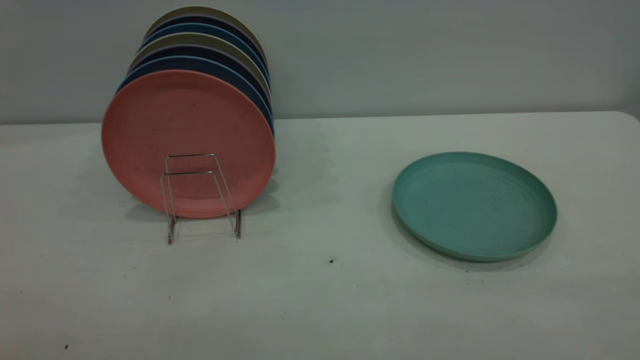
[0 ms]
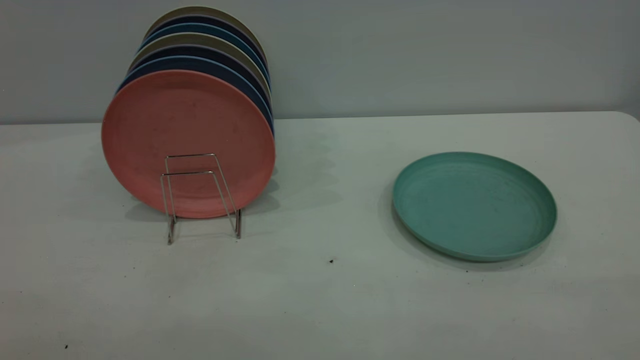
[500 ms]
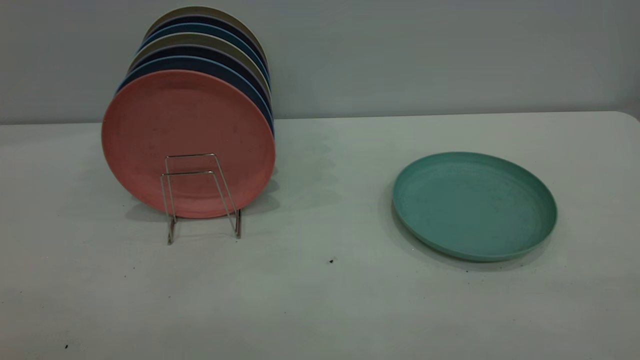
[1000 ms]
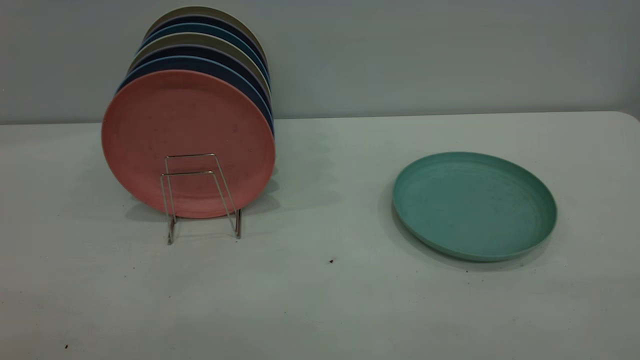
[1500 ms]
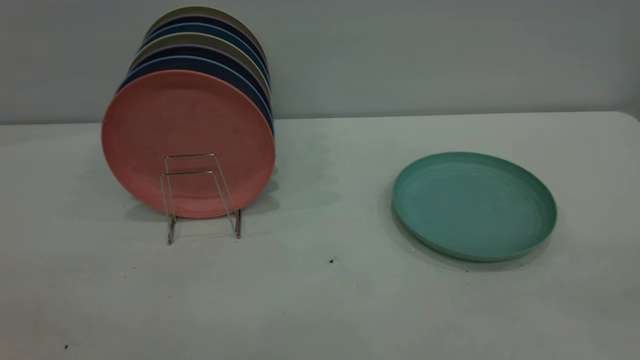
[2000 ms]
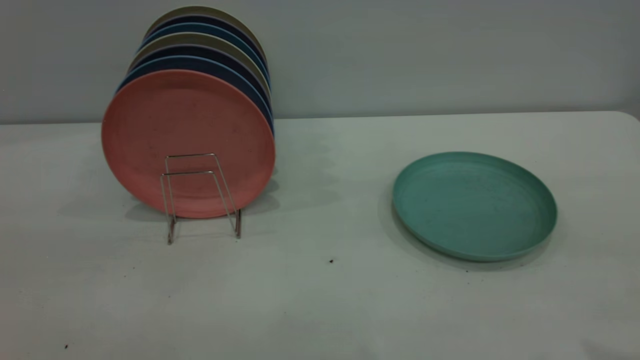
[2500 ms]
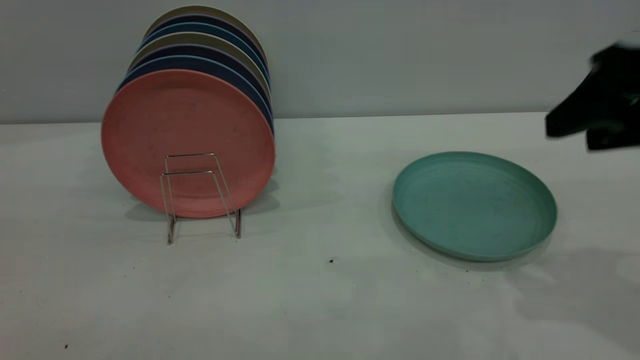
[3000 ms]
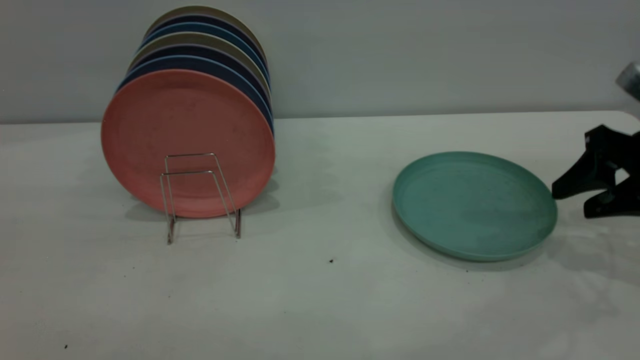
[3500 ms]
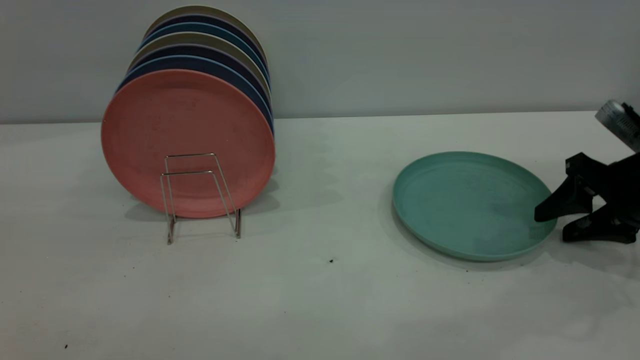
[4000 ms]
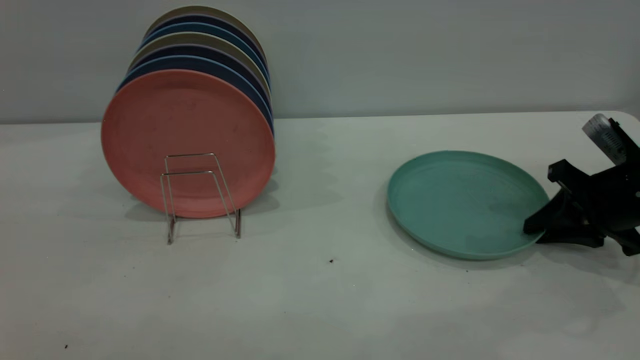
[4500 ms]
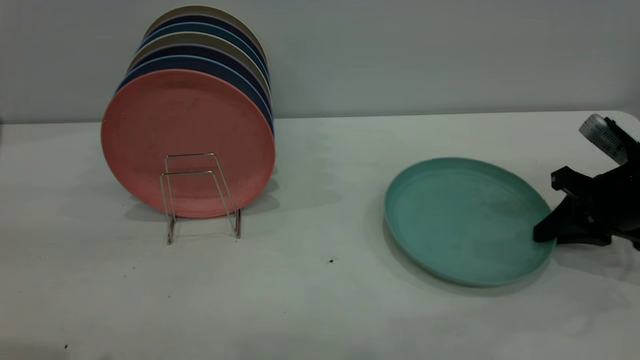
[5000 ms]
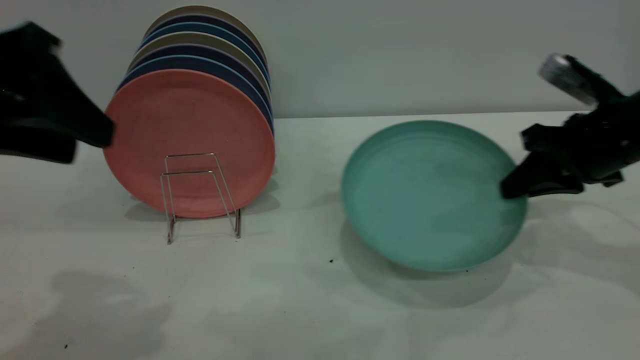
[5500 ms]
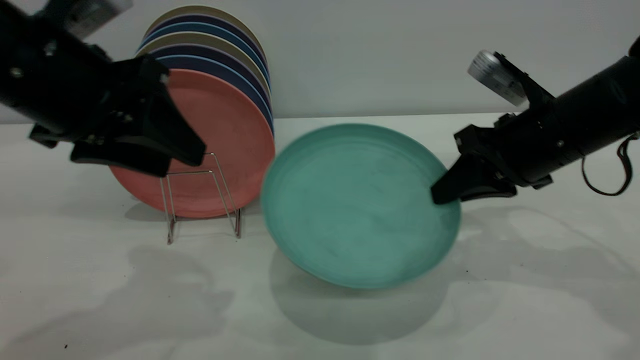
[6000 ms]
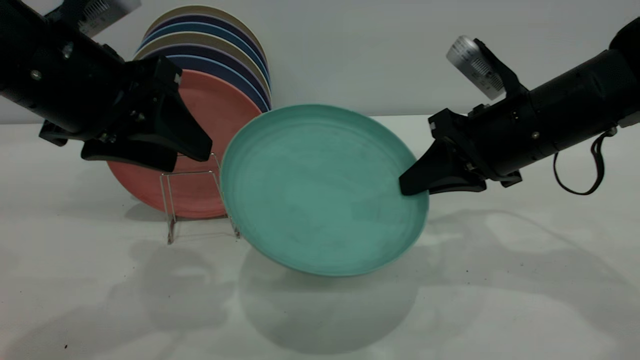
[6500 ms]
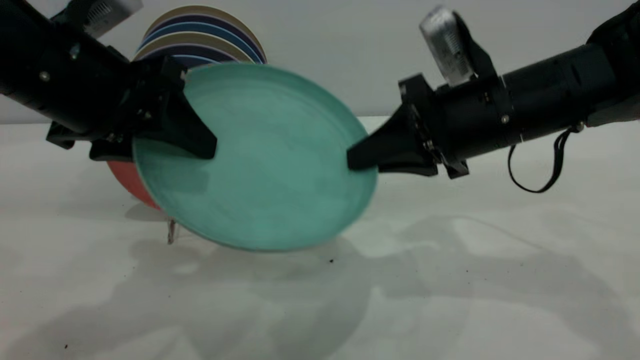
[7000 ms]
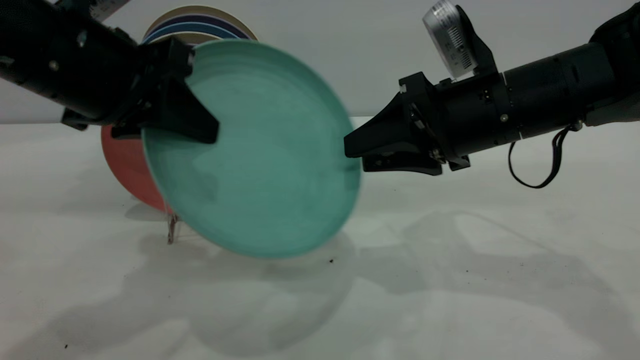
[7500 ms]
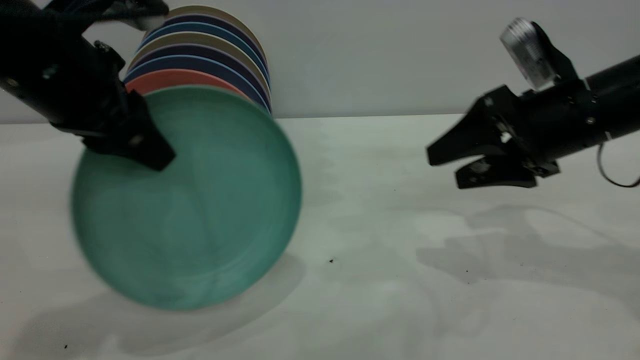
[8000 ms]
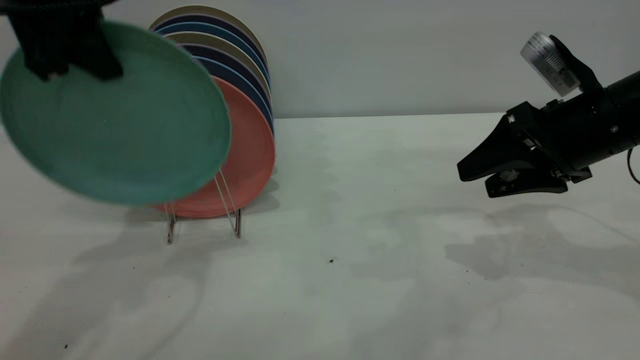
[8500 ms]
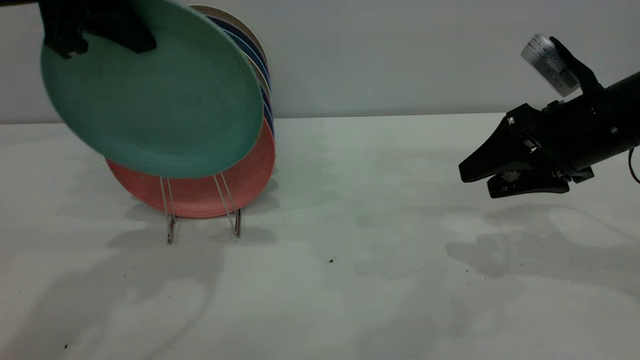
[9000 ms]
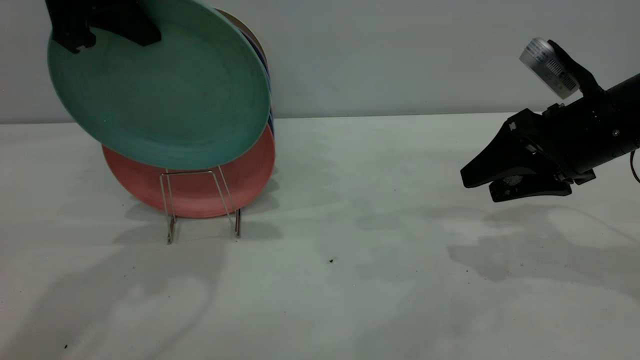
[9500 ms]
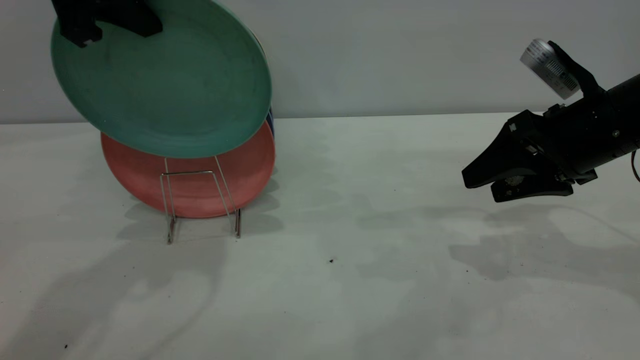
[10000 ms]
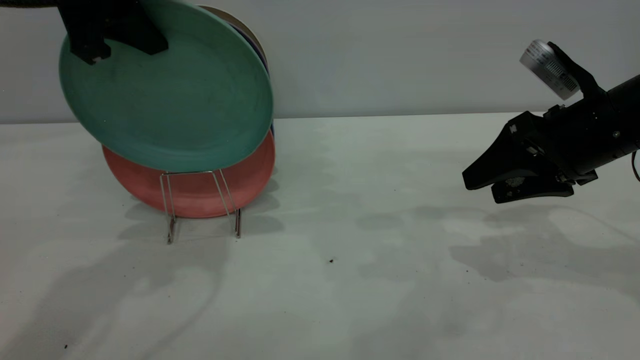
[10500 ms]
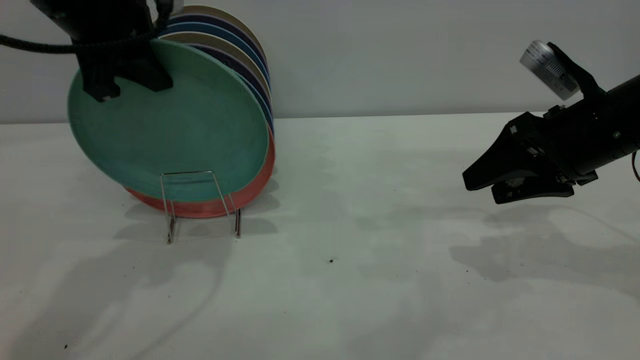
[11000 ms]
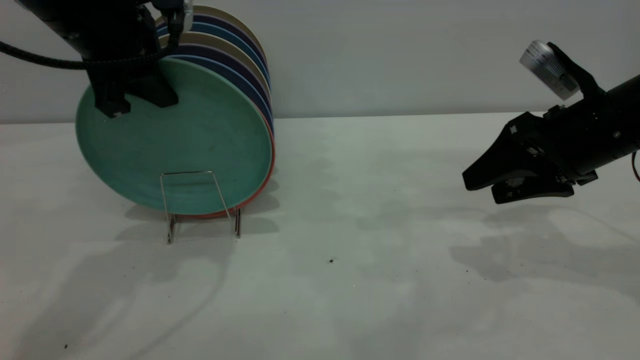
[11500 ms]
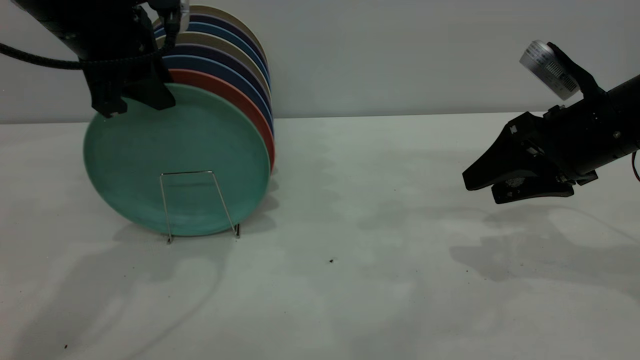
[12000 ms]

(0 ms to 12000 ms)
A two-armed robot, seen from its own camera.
Task of the whole recording: the right gripper grasp the green plate, the right gripper pass the green plate to the left gripper, and the left gripper place the green plate on the plate rack.
Step, 0 ms - 5000 ms: Pick up the plate with the right gripper.
Step, 5500 ms - 8500 ms: Pass the plate from the right gripper to the left gripper.
2000 ms - 4000 ms: The right gripper goes roughly 40 cm forward and downward.
4000 ms - 6000 ms: The left gripper goes roughly 20 cm forward, downward and to the right. Meanwhile the right gripper heads to the left and upward, covering roughly 15 cm, and closes its fingers.
6000 ms - 8000 ms: The right gripper moves some 5 cm to the left and comes back, and opens its fingers, while the left gripper closes its fingers.
8000 ms - 10000 ms: The left gripper heads upward and forward, covering roughly 10 cm.
10000 ms - 12000 ms: The left gripper goes roughly 5 cm downward.

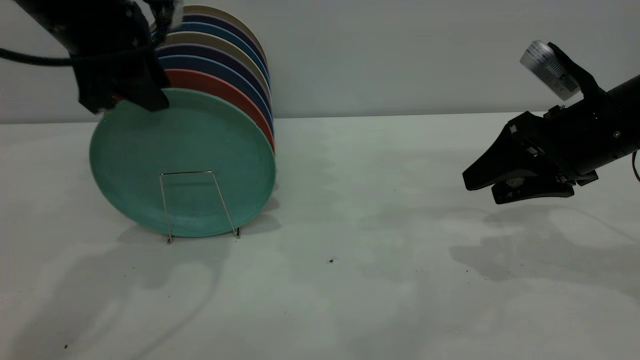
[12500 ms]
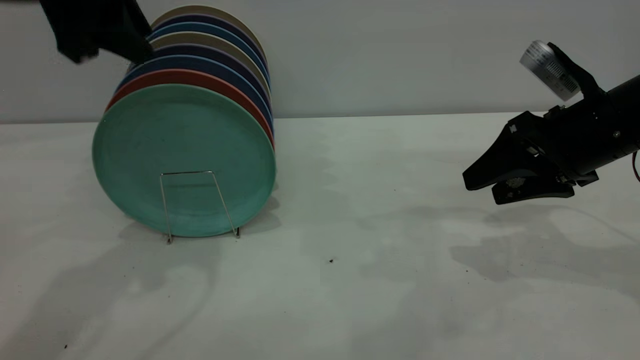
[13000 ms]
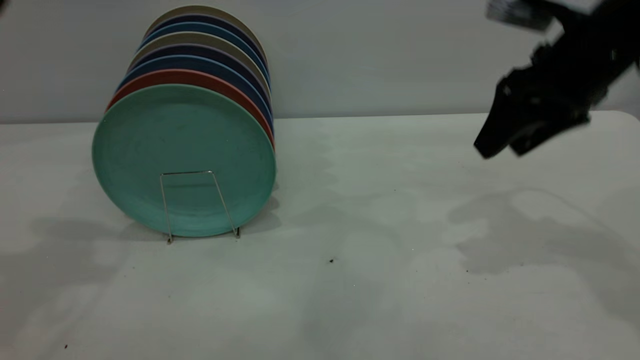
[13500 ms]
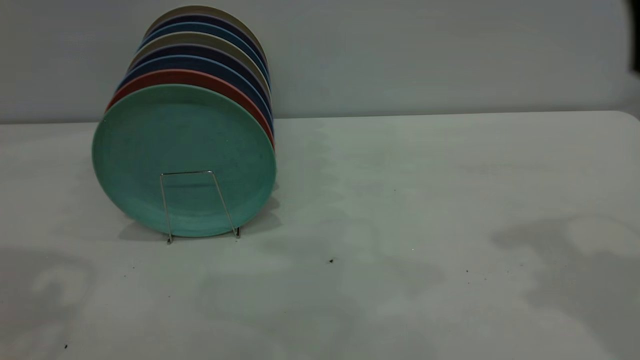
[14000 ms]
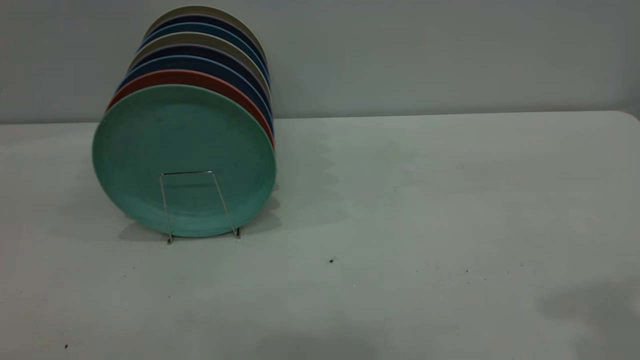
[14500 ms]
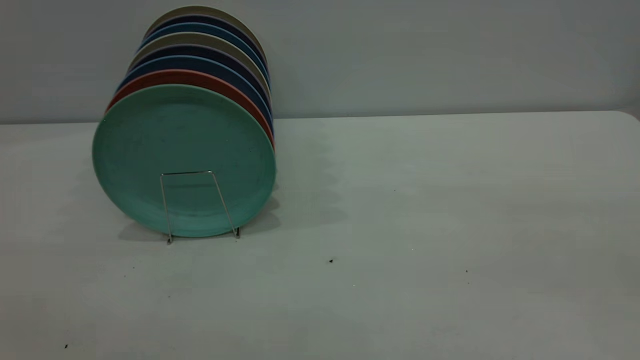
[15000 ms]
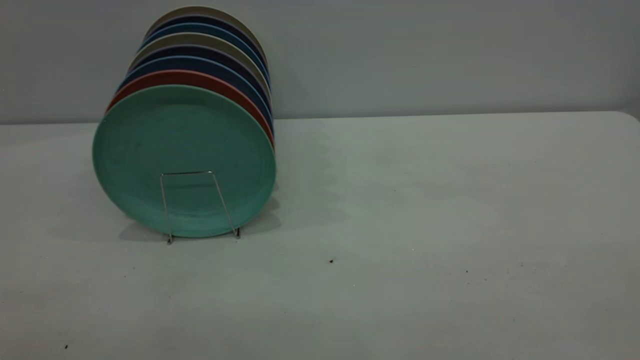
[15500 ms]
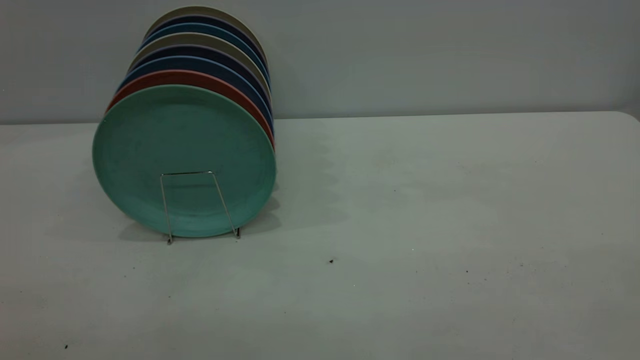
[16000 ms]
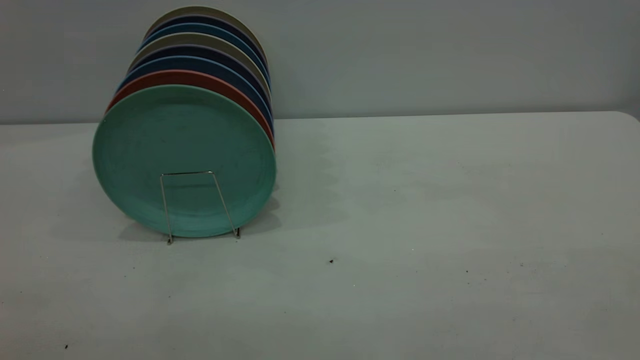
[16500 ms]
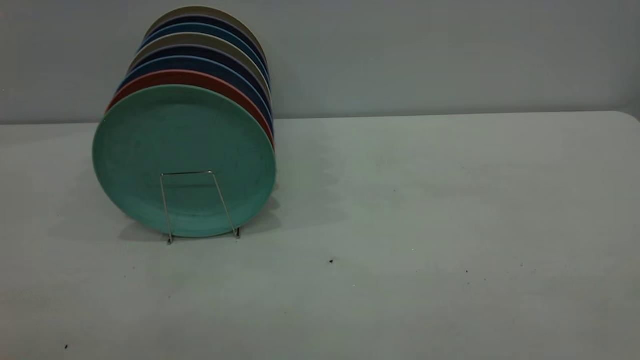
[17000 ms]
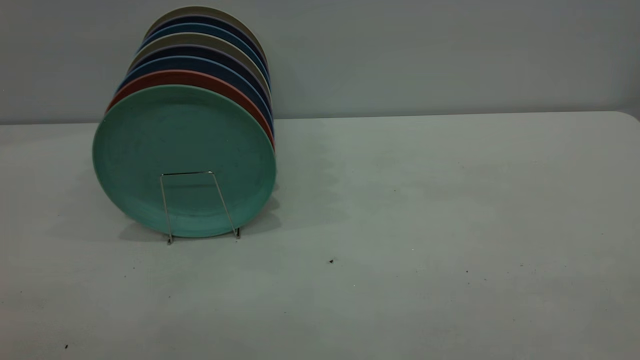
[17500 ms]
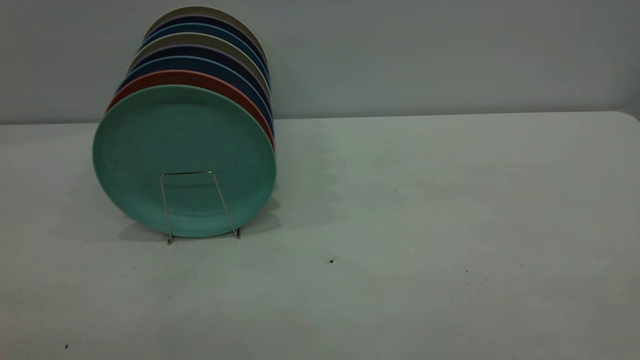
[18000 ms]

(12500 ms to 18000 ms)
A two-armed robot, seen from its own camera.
Task of the whole recording: the right gripper grasp the green plate, the right gripper pass the green plate to the left gripper, and the left gripper place the green plate on the plate rack.
12500 ms - 14500 ms: The right gripper shifts about 30 cm upward and backward. The left gripper moves backward, upward and to the left, about 30 cm, and opens its fingers.

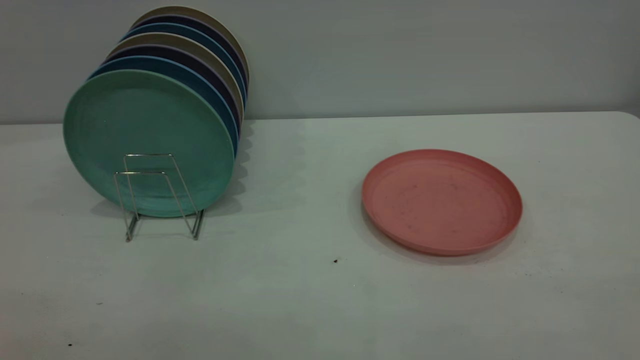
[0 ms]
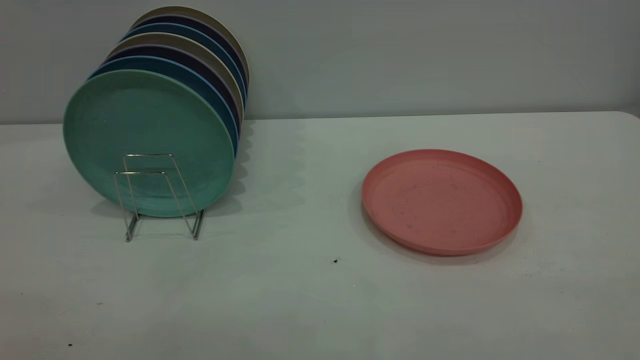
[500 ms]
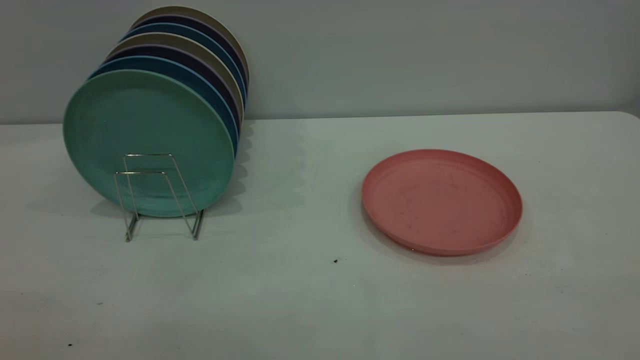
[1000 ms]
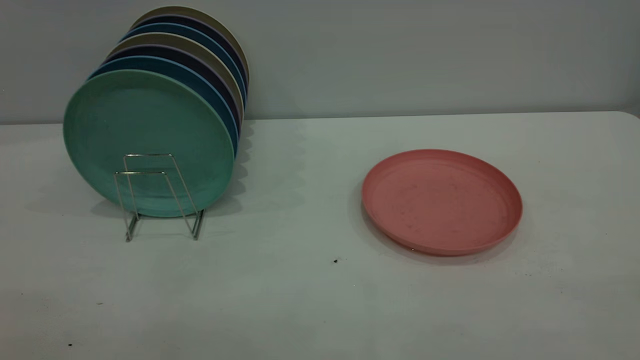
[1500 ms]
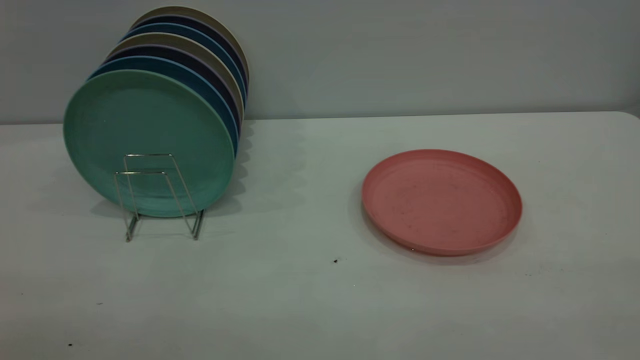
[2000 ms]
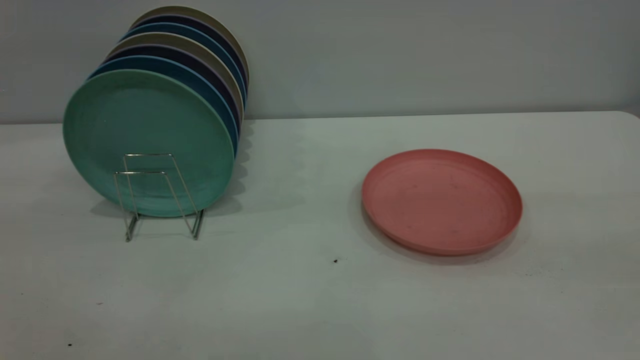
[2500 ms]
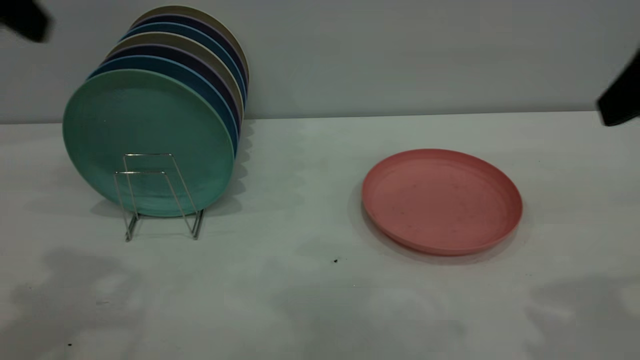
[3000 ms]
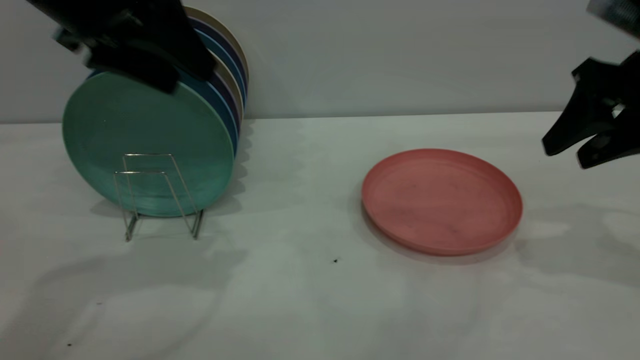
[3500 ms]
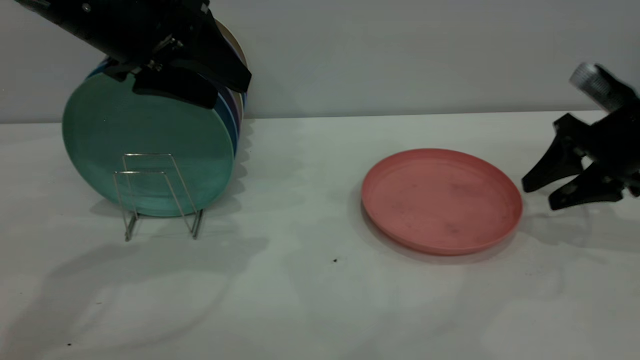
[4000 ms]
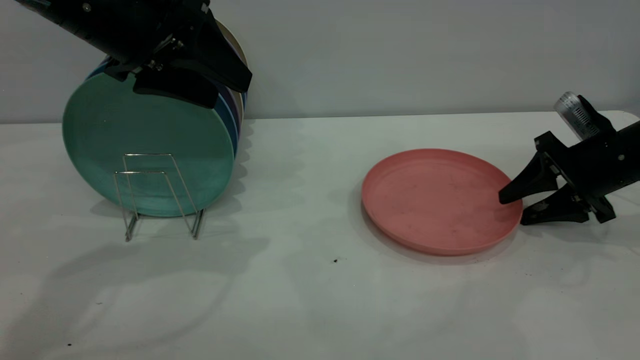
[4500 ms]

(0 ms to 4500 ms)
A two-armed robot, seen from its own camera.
Task of the whole recording: the right gripper grasp the pink plate, the right gripper pass the pink plate to the left gripper, and the left gripper place the pink plate on the plate rack.
2000 ms - 4500 ms: The left gripper shifts some 35 cm forward. Meanwhile the right gripper goes roughly 50 cm forward and downward.
